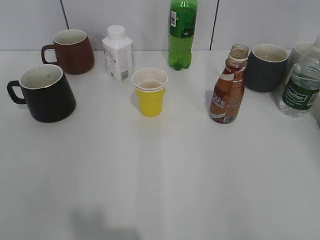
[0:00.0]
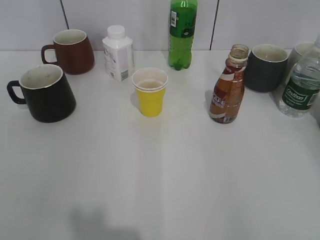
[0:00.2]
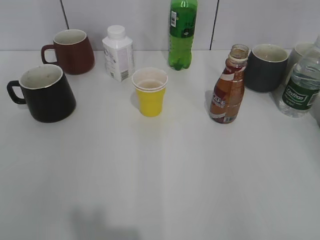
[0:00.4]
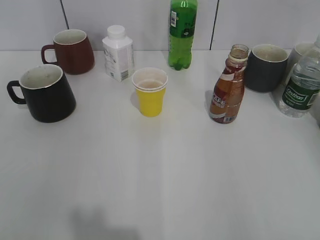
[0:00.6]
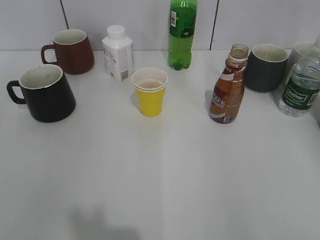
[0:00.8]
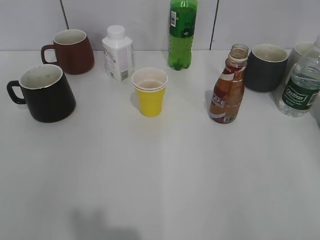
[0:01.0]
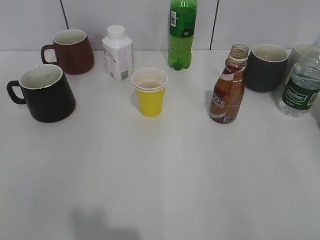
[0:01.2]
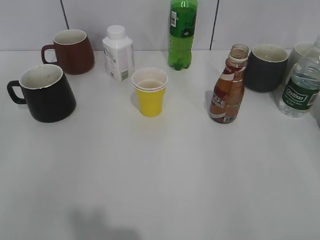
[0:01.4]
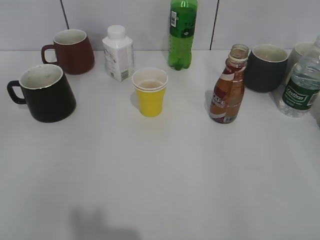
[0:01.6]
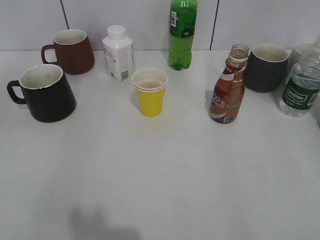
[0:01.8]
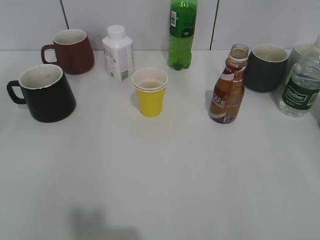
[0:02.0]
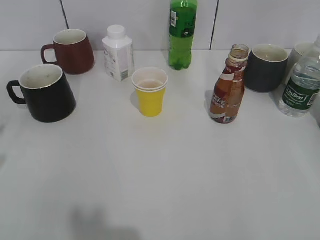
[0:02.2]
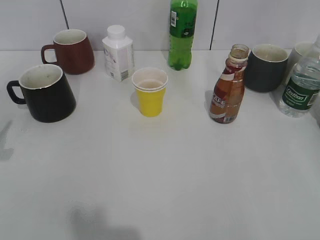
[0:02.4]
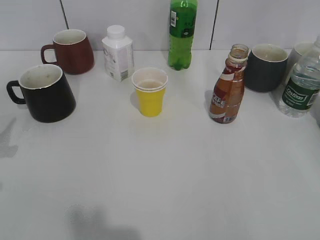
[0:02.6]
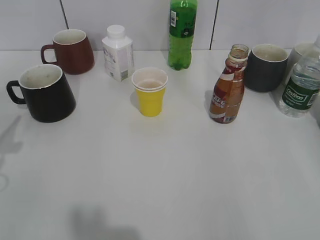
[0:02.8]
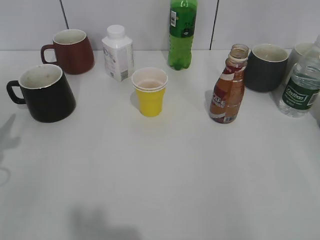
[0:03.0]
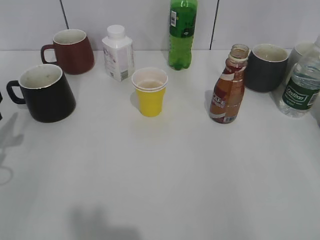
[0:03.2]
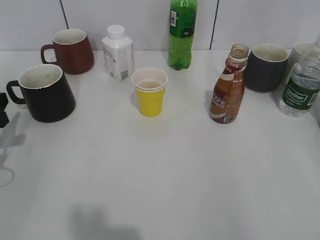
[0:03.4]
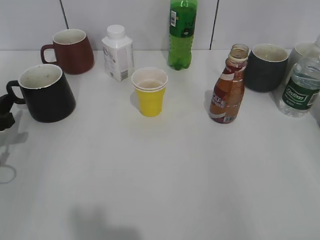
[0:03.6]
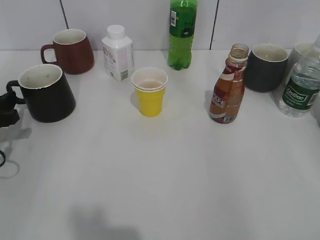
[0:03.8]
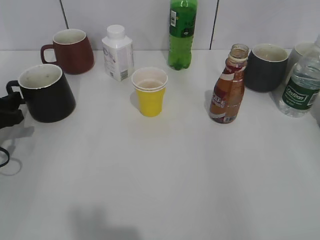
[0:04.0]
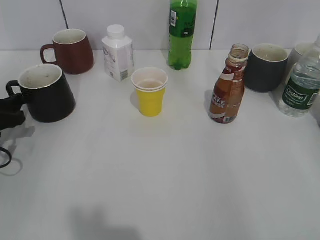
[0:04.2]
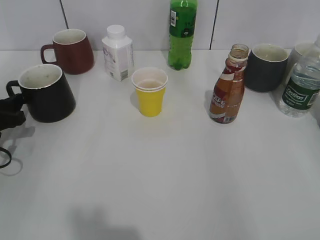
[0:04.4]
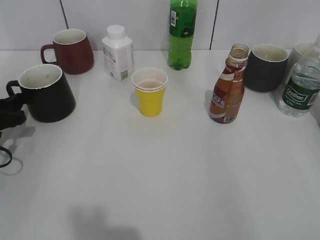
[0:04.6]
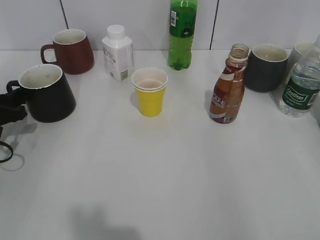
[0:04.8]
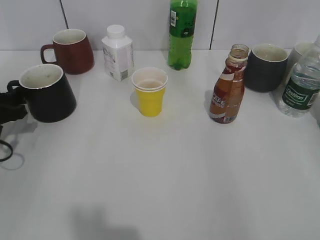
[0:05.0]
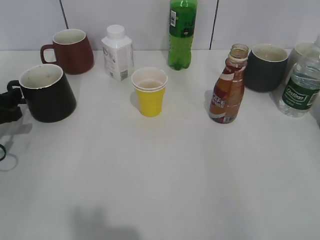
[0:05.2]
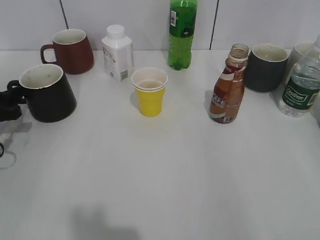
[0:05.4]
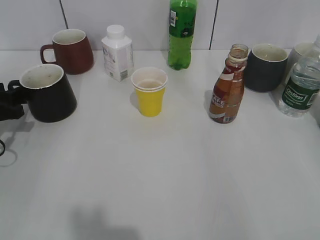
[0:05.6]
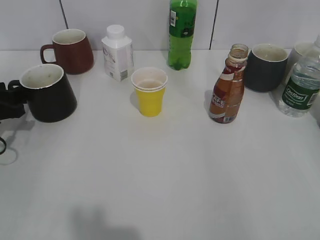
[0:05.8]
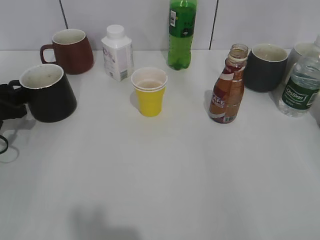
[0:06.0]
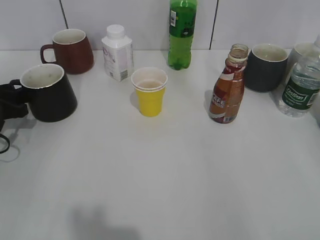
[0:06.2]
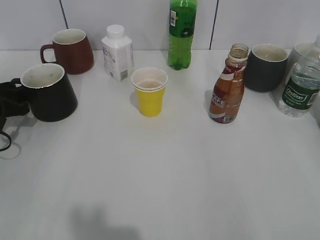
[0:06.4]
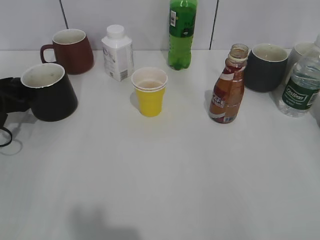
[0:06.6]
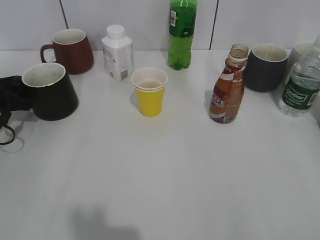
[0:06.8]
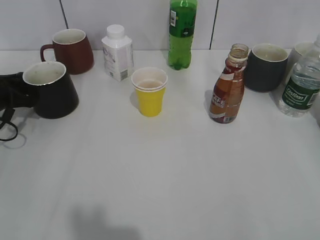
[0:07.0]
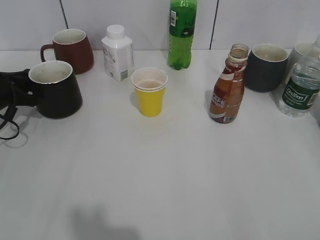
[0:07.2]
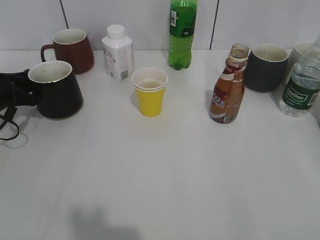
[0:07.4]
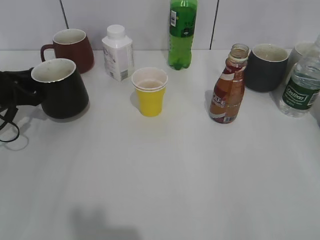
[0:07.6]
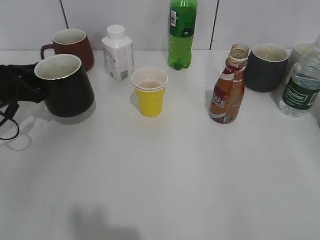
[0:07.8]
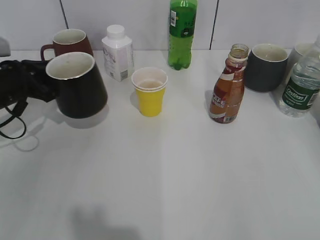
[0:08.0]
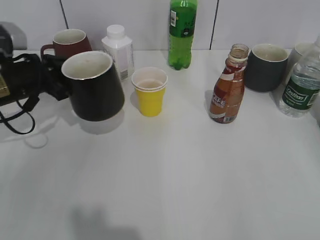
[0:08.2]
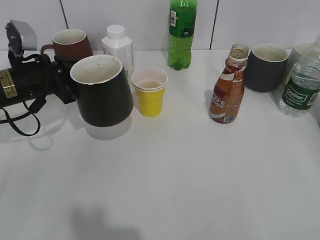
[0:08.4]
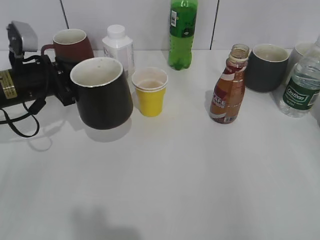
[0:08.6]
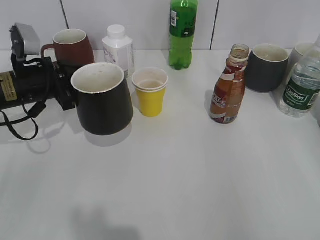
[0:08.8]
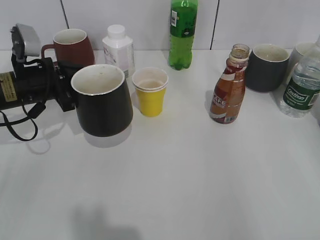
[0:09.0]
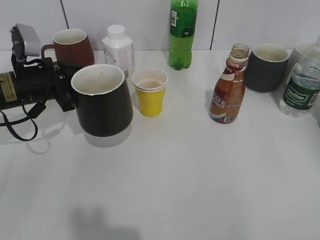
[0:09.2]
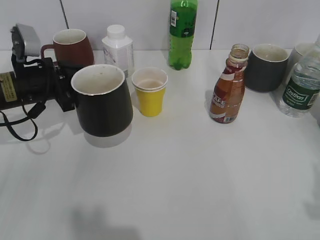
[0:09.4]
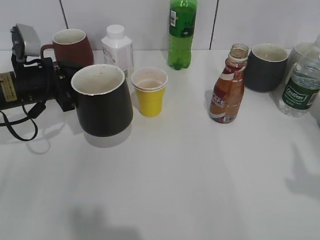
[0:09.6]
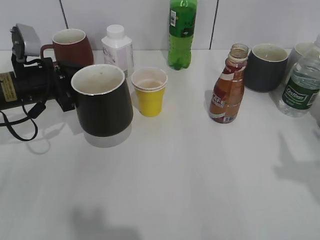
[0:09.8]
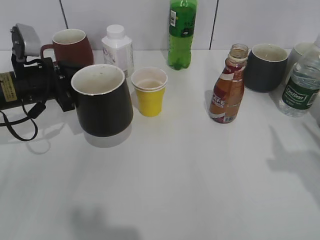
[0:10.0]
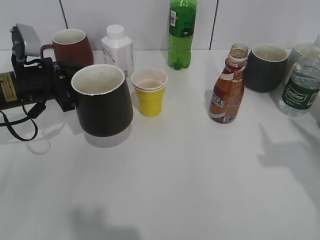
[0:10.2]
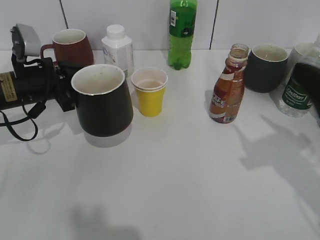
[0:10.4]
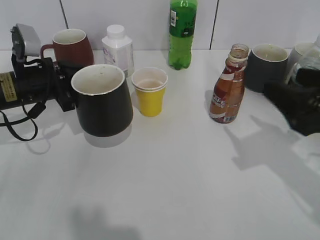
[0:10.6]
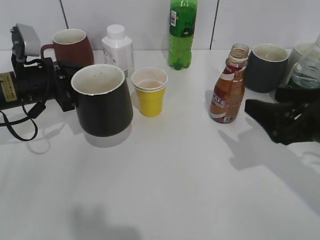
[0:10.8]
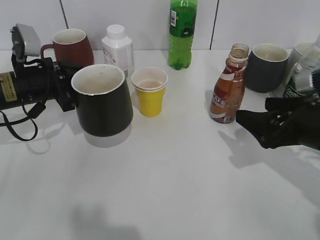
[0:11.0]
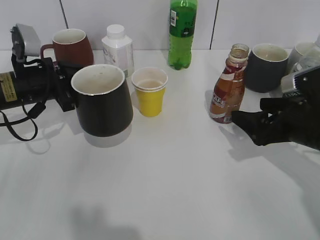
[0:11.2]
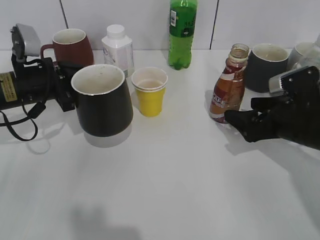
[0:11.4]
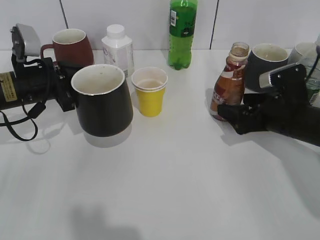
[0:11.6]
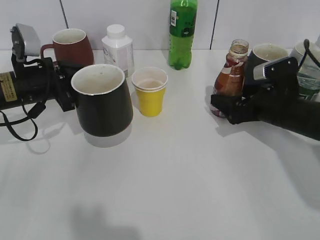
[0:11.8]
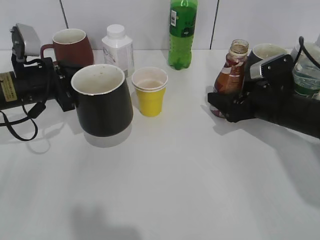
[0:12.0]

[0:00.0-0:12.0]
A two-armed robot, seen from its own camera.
Step, 0:01.0 to 0:07.0: Grasp the black cup with left gripper.
Step, 0:07.2 to 0:09.2: Lift the black cup with left gripper.
0:01.6 to 0:03.0: The left gripper goes approximately 25 cm forward and downward.
0:03.0 to 0:04.4: The left gripper goes roughly 10 cm downward and forward.
0:04.4 to 0:06.0: The grippers move only a little.
0:06.0 to 0:07.6: The left gripper closes its fingers.
0:07.6 to 0:09.0: The left gripper moves to the right, approximately 10 cm.
0:09.0 to 0:10.4: The right gripper travels forward by about 15 cm.
0:10.4 to 0:12.0: The right gripper is displaced forward and downward by about 20 cm, and opens.

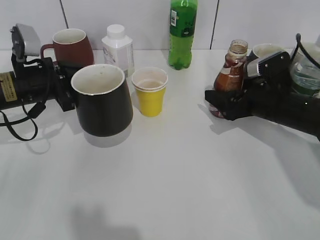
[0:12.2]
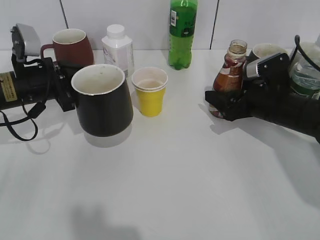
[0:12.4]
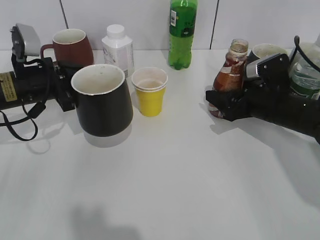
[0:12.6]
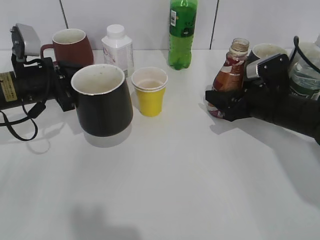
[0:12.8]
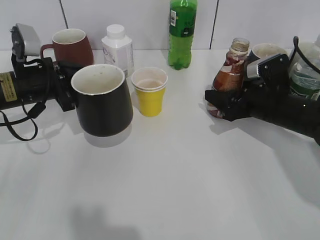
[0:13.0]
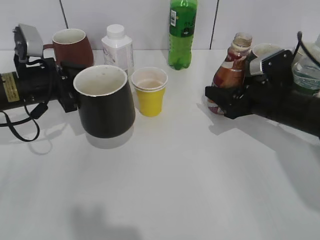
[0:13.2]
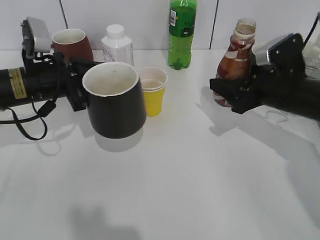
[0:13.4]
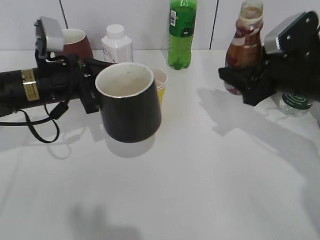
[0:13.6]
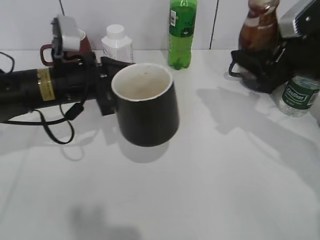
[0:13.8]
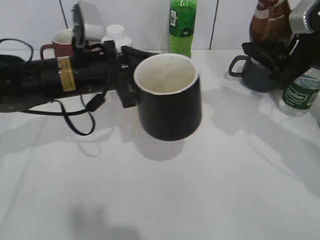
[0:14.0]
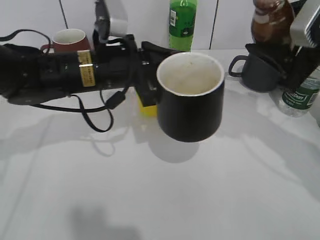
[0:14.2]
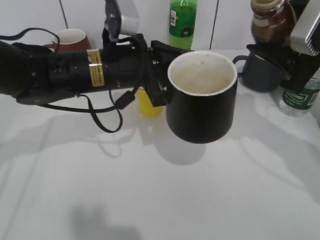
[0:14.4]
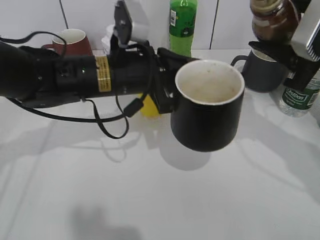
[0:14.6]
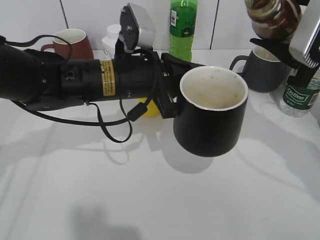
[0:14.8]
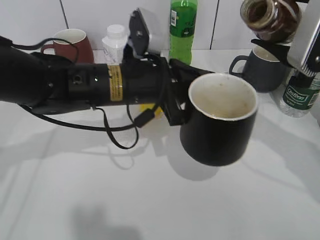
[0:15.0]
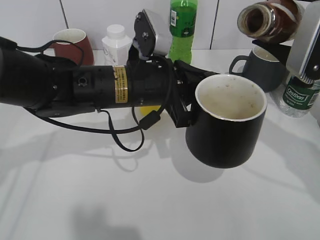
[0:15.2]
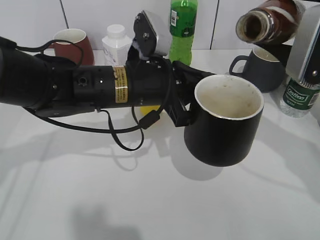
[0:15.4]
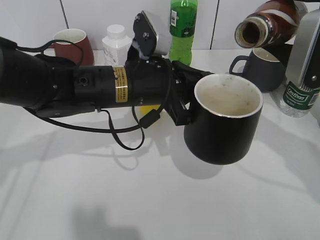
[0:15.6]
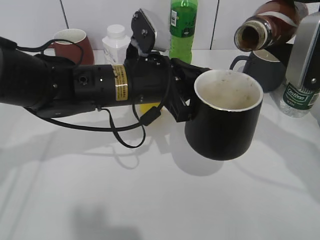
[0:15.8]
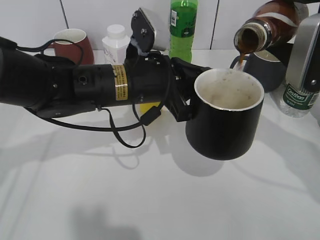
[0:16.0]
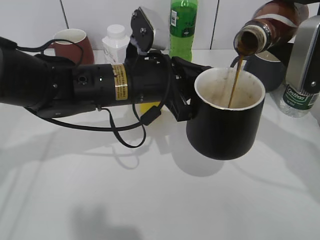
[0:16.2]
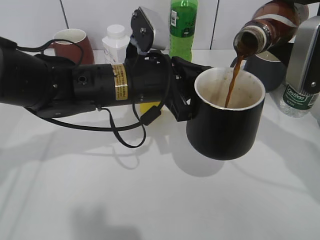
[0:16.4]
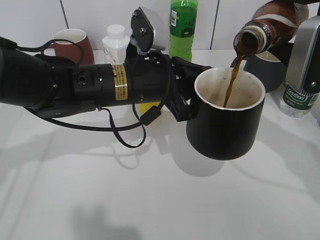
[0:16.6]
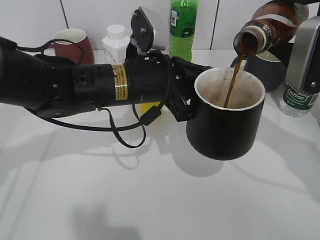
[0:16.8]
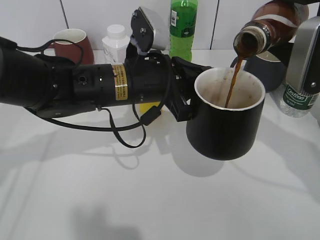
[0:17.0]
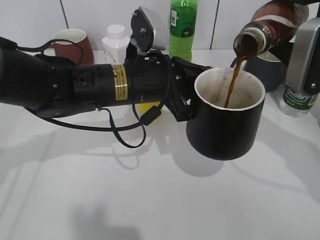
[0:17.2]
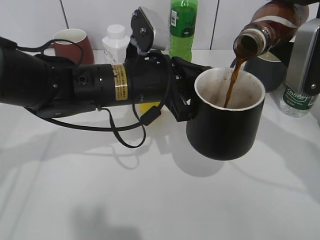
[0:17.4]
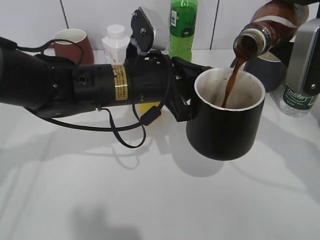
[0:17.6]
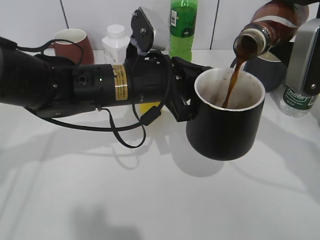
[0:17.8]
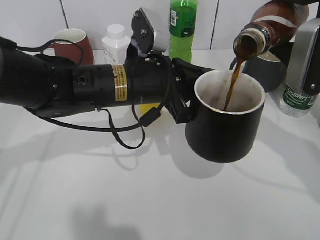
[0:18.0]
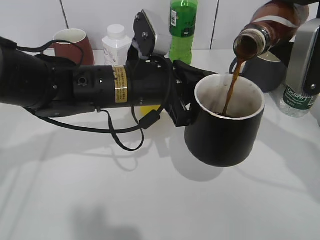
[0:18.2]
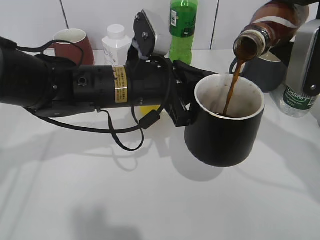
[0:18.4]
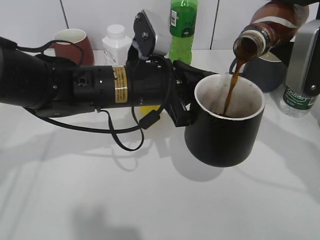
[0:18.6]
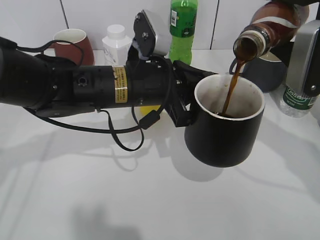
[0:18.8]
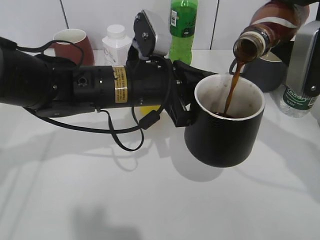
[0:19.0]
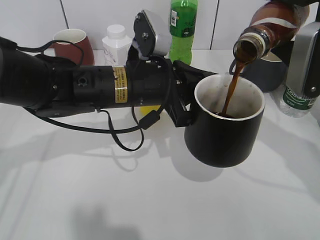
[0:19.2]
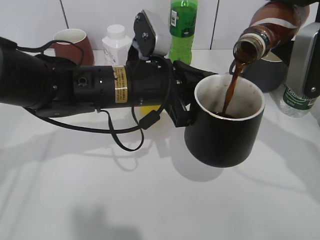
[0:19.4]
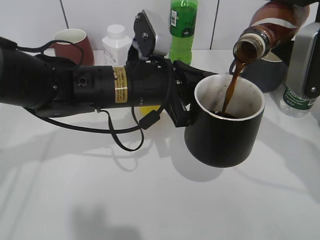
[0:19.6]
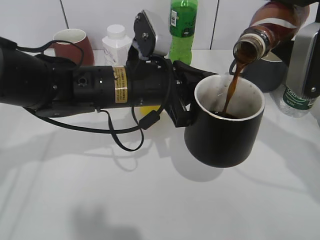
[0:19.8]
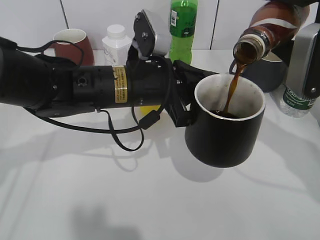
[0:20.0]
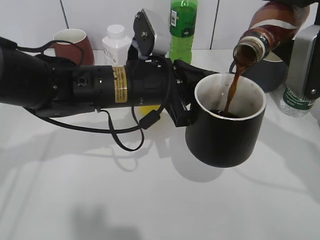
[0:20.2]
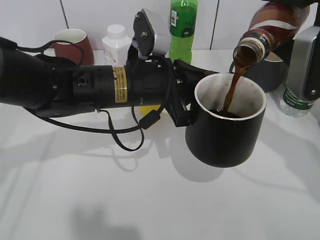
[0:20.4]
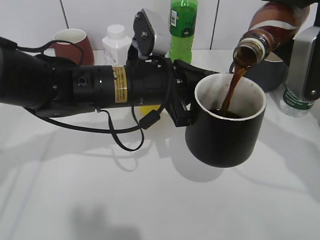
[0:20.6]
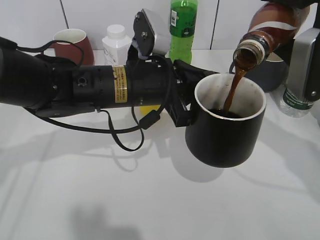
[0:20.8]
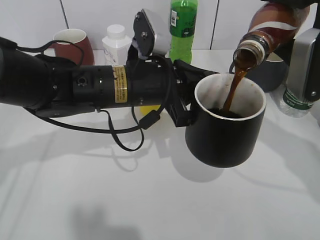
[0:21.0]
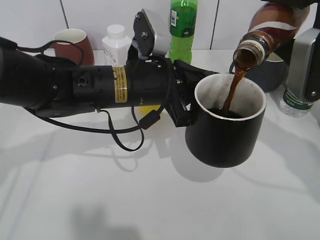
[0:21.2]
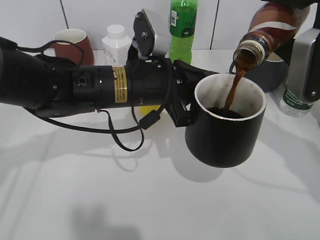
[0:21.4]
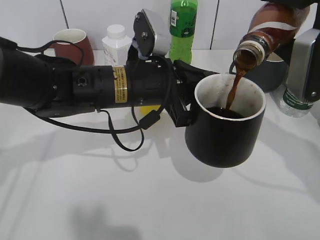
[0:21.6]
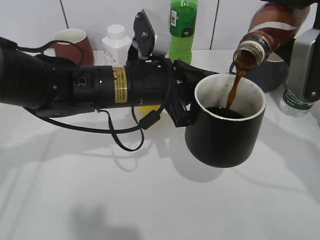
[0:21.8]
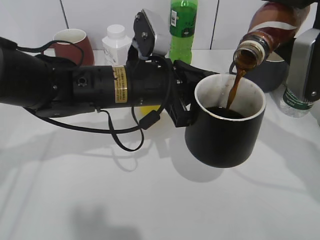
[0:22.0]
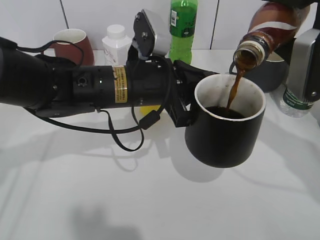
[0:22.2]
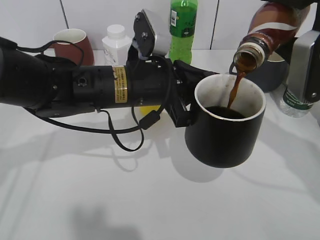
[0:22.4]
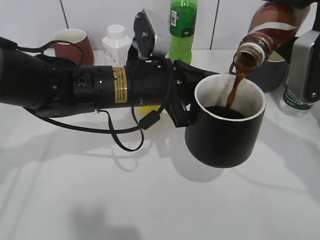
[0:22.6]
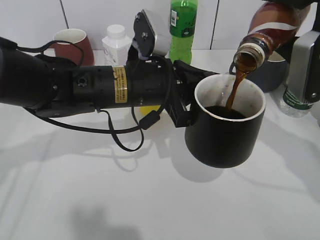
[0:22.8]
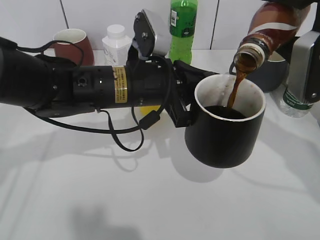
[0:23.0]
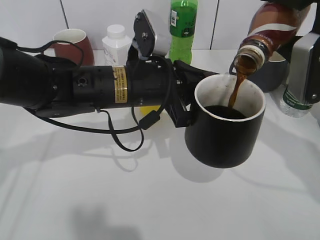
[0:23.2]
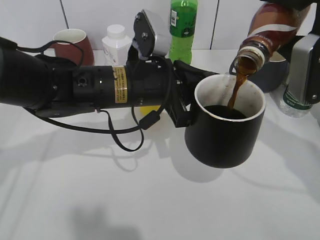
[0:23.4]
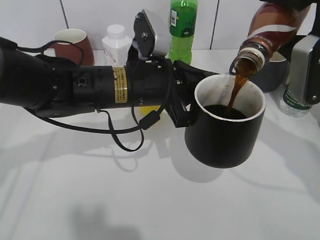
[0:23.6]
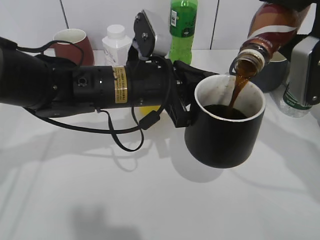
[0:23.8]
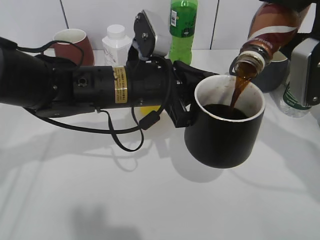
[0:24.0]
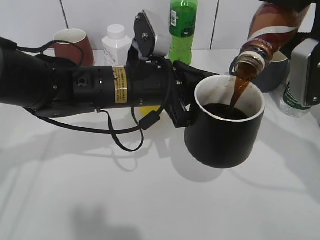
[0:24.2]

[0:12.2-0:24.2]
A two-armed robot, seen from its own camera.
0:12.2 to 0:13.8: The right gripper heads upward, covering roughly 10 cm, and closes its fingers, while the left gripper goes roughly 5 cm to the right.
0:13.8 to 0:15.2: The right gripper goes about 5 cm upward. Meanwhile the left gripper heads to the right, covering roughly 10 cm.
0:15.2 to 0:16.6: There are only small adjustments of the grippers.
0:16.6 to 0:18.2: Both grippers stay about where they are.
0:18.2 to 0:19.8: Both grippers stay about where they are.
0:19.8 to 0:21.2: Both grippers stay put.
0:21.2 to 0:22.6: The two grippers keep their place.
0:22.6 to 0:24.2: The grippers make only small movements.
